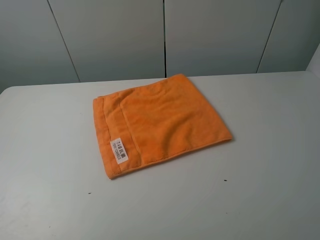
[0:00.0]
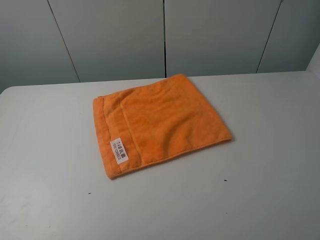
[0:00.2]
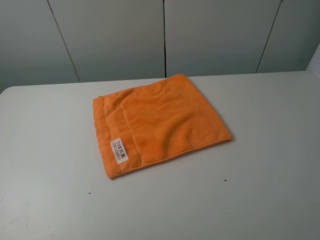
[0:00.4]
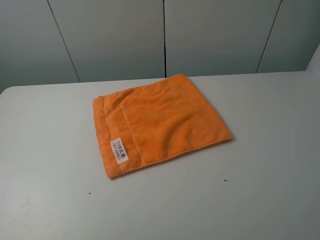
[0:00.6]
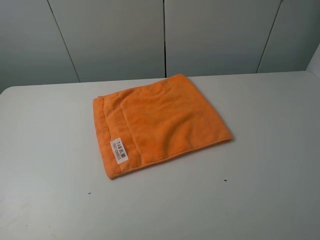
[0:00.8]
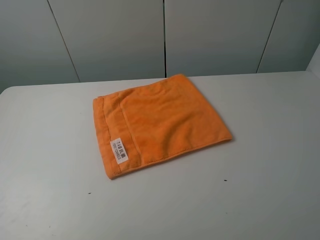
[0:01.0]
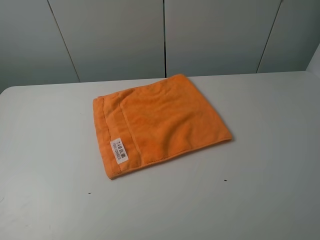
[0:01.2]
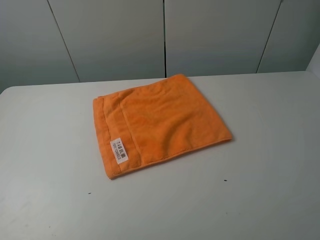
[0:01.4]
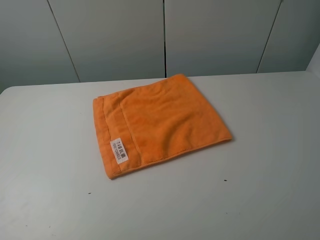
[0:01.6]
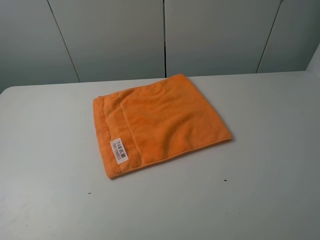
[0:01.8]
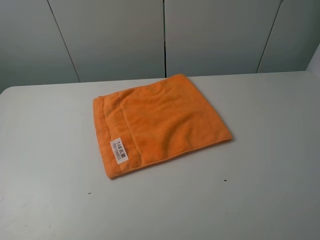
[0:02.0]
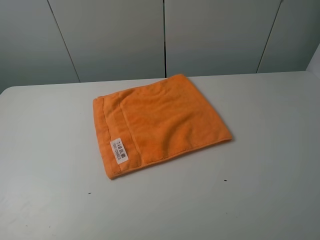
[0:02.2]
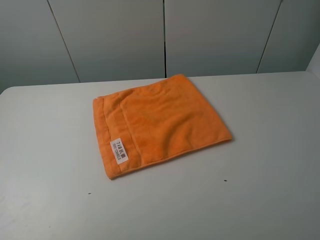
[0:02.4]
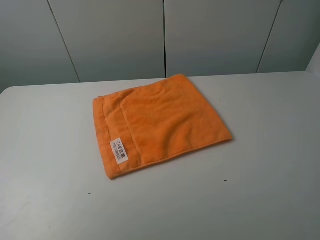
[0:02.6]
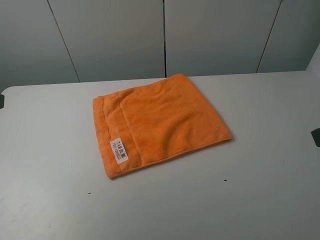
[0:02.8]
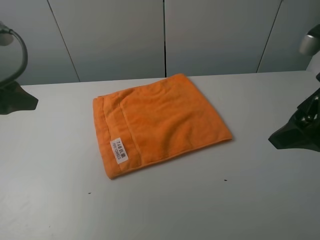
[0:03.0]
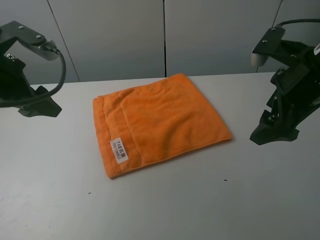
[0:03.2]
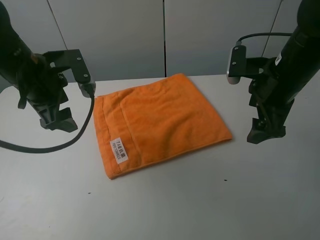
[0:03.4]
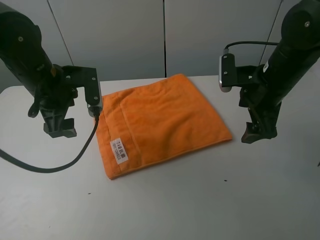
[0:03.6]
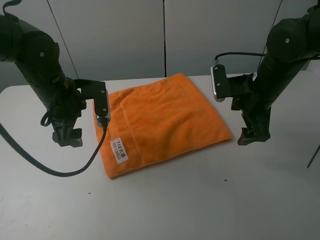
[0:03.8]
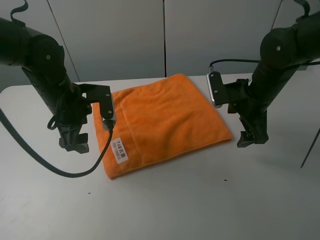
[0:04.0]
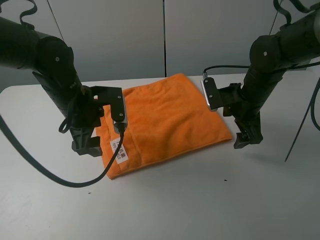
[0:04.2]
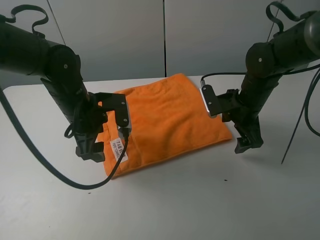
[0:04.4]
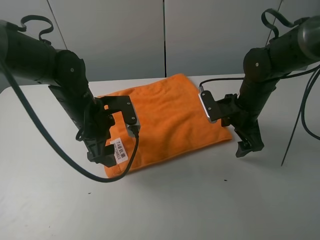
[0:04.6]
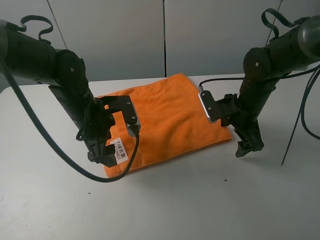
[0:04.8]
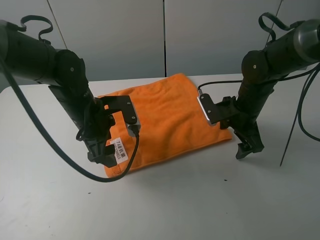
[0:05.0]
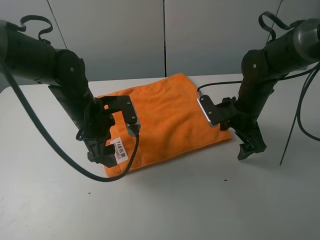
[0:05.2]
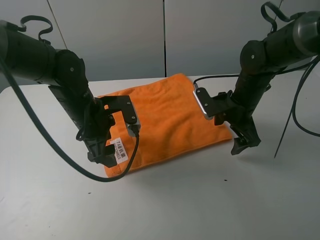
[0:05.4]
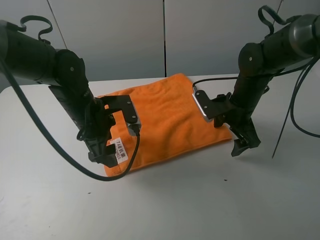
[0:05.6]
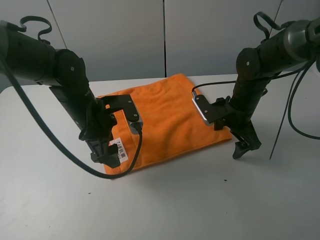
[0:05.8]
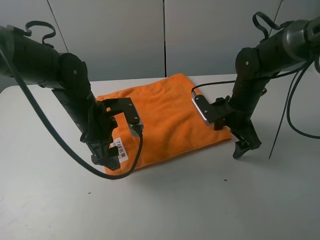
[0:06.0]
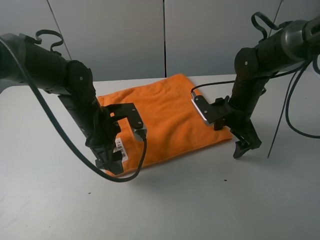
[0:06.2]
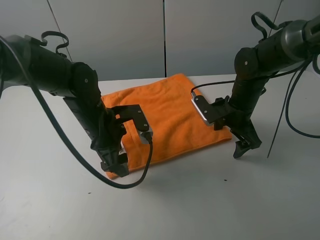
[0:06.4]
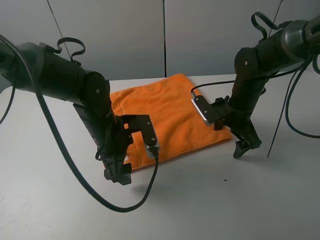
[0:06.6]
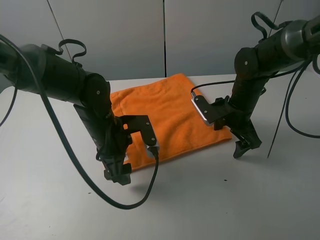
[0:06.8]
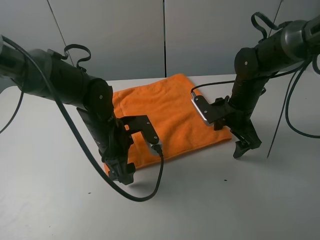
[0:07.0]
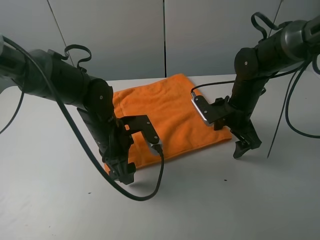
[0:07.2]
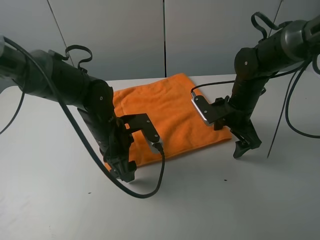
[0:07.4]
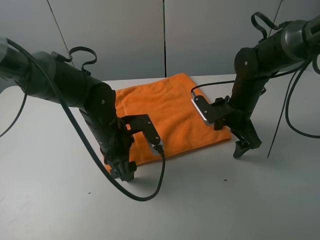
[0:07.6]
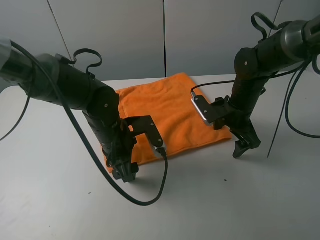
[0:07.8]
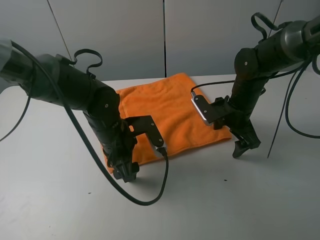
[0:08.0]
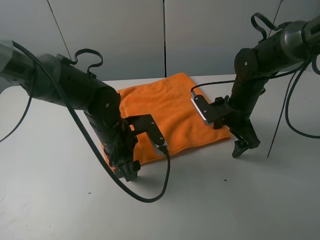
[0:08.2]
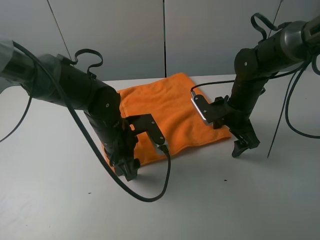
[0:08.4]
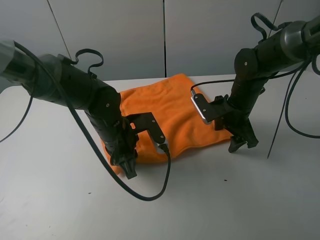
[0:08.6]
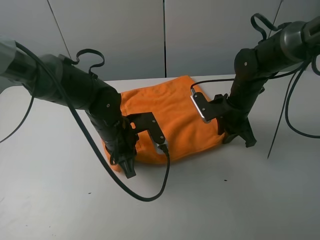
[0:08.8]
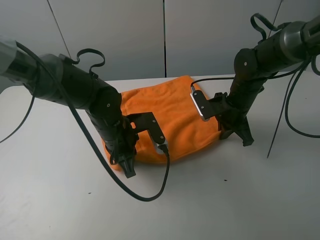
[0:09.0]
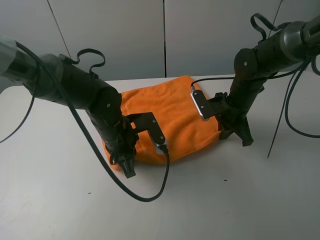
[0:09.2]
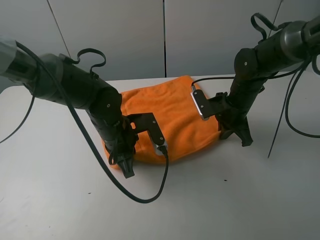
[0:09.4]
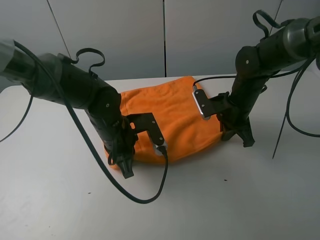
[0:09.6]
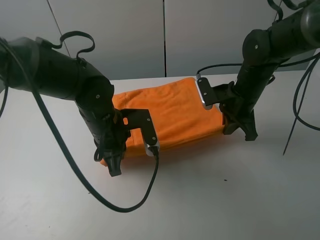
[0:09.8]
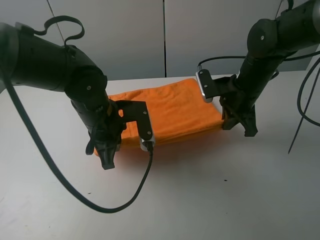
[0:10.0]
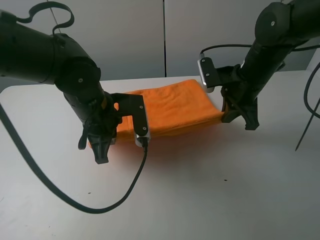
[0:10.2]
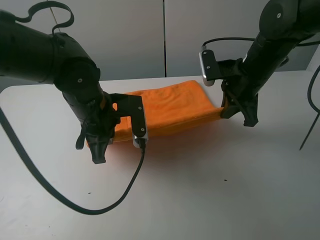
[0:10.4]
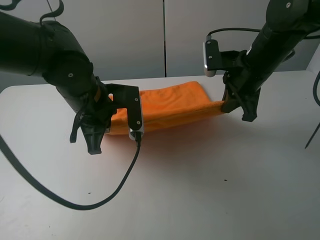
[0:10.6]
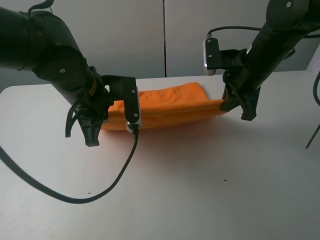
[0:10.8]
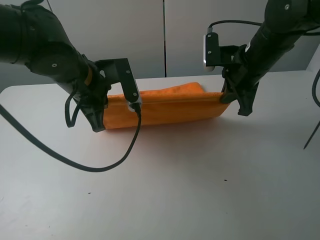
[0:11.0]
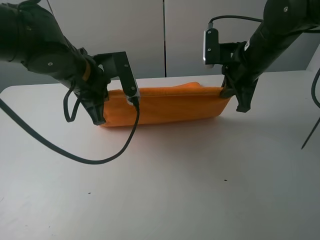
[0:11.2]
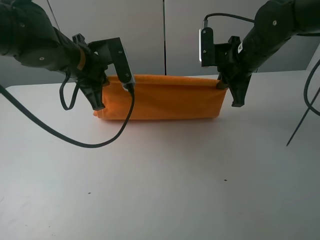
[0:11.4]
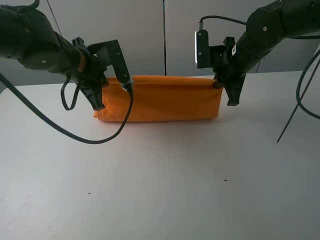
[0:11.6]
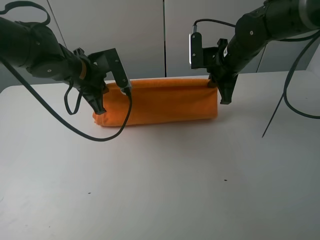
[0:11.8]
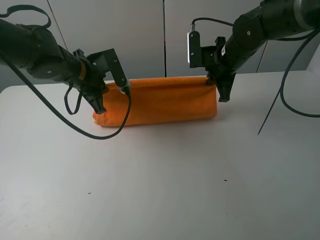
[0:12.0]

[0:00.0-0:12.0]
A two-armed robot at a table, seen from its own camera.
Task of the whole recording: fold the towels on the table.
Step, 0:00.0 to 0:09.2: Grasp the orange towel with the right gripper.
0:00.0 to 0:01.6: Both grippers stay put.
0:01.6 to 0:03.0: Both grippers move forward, approximately 20 cm.
0:03.0 to 0:04.4: The left gripper is displaced to the right, downward and forward by some 20 cm. The right gripper heads downward and forward, covering approximately 20 cm.
0:04.4 to 0:06.0: There are only small adjustments of the grippers.
0:06.0 to 0:07.6: The left gripper shifts by approximately 5 cm.
0:07.6 to 0:09.0: The right gripper closes up; the left gripper closes.
0:09.0 to 0:10.4: Both grippers travel together upward, roughly 10 cm.
0:10.4 to 0:12.0: The right gripper heads forward, covering roughly 5 cm. Meanwhile the left gripper moves forward and to the left, some 10 cm.

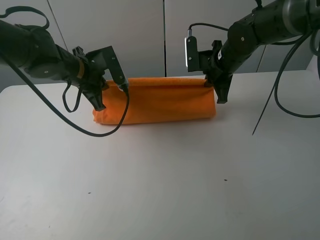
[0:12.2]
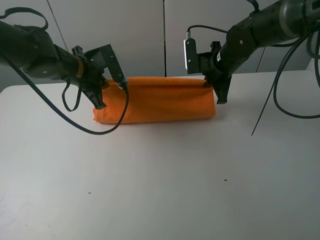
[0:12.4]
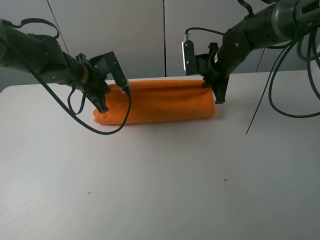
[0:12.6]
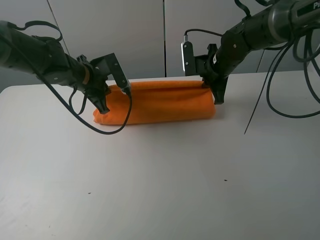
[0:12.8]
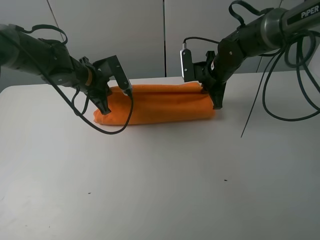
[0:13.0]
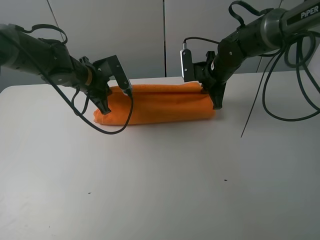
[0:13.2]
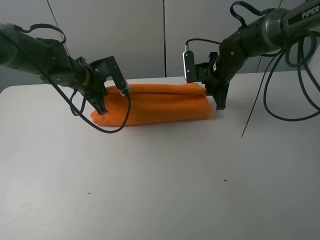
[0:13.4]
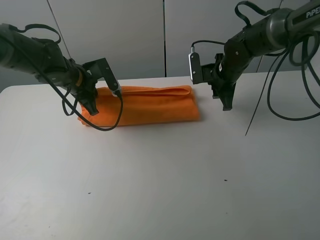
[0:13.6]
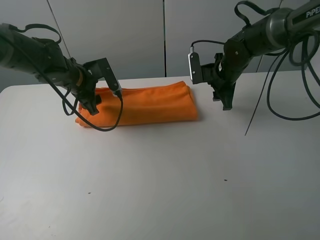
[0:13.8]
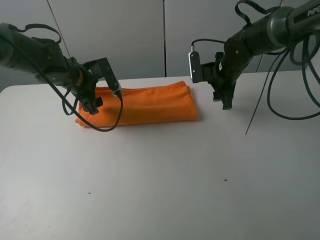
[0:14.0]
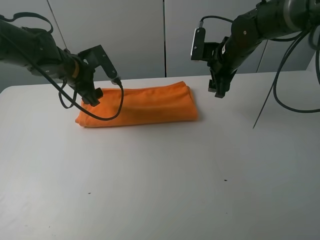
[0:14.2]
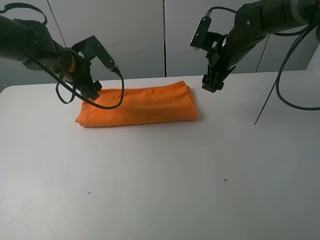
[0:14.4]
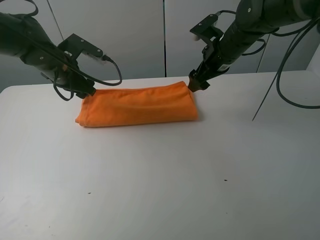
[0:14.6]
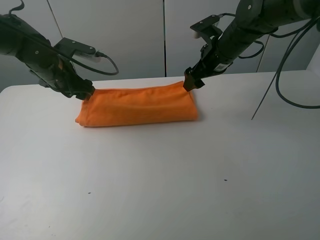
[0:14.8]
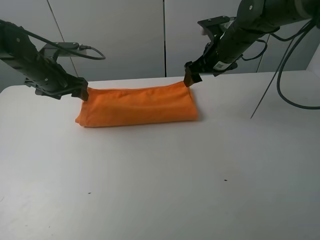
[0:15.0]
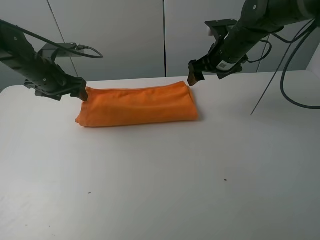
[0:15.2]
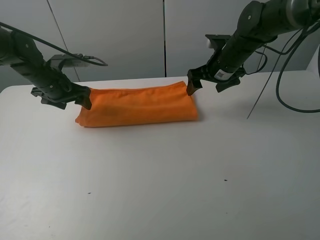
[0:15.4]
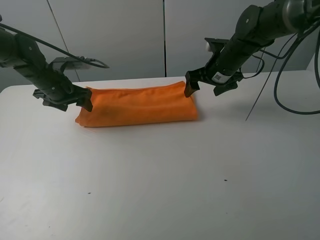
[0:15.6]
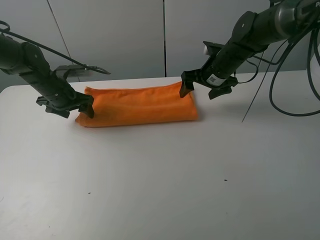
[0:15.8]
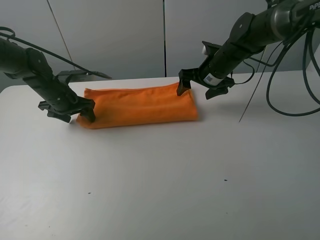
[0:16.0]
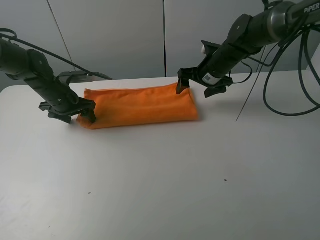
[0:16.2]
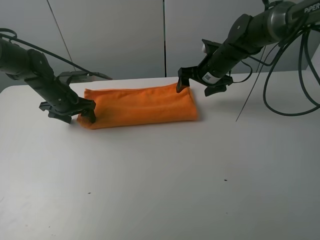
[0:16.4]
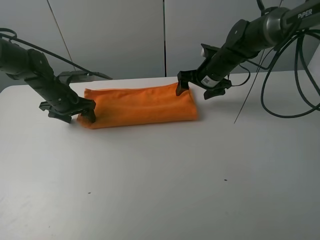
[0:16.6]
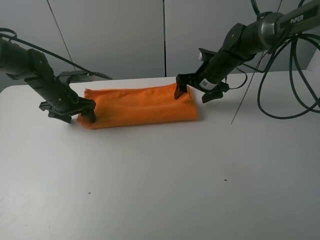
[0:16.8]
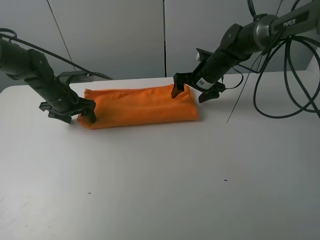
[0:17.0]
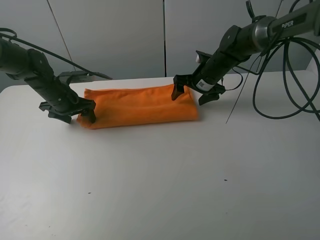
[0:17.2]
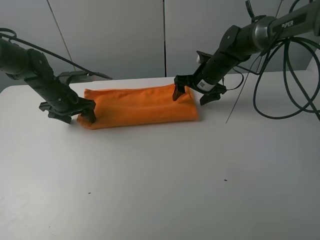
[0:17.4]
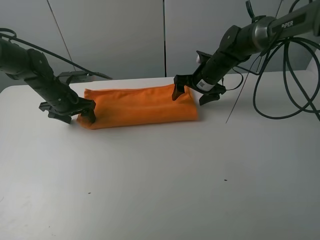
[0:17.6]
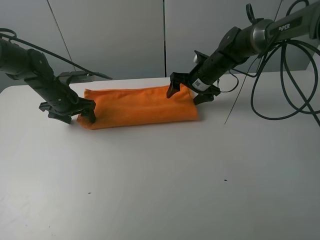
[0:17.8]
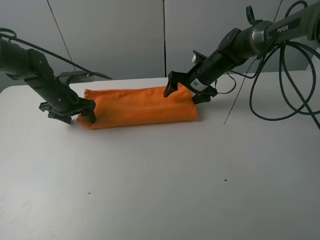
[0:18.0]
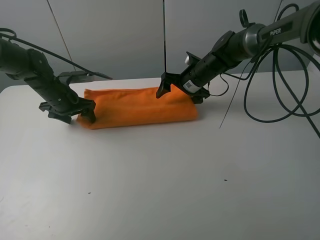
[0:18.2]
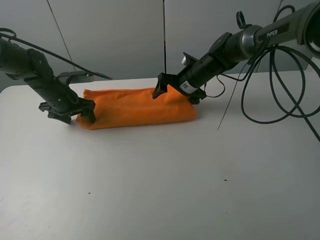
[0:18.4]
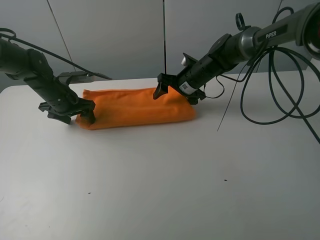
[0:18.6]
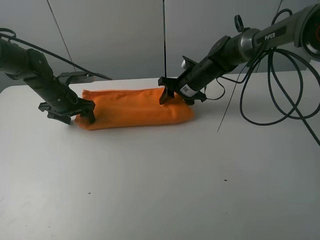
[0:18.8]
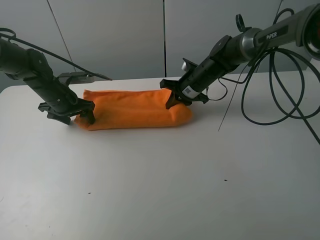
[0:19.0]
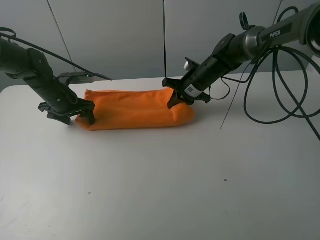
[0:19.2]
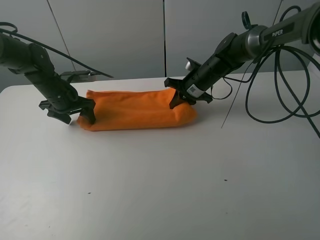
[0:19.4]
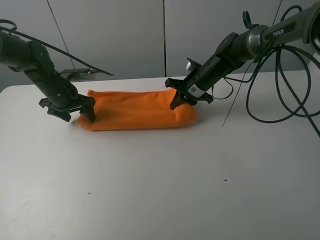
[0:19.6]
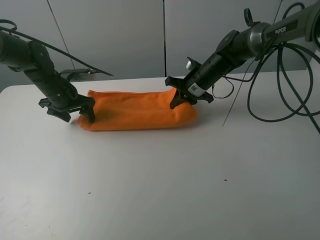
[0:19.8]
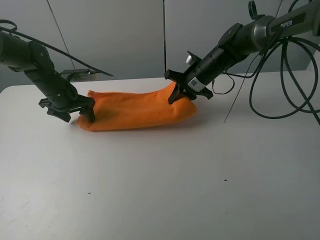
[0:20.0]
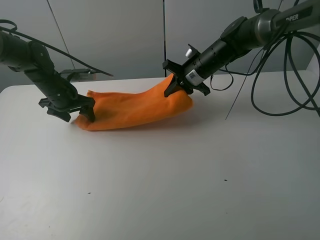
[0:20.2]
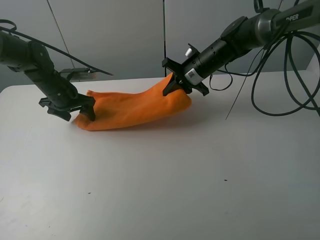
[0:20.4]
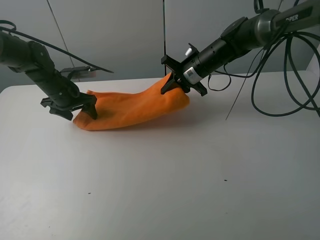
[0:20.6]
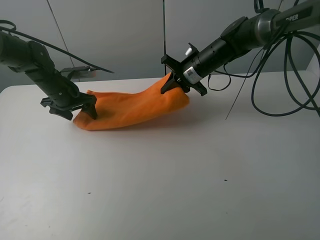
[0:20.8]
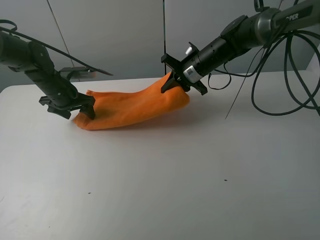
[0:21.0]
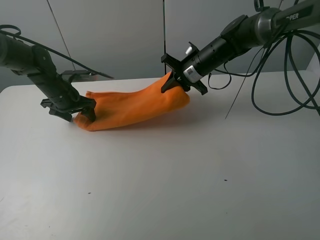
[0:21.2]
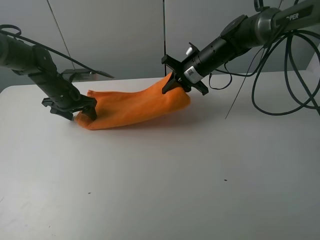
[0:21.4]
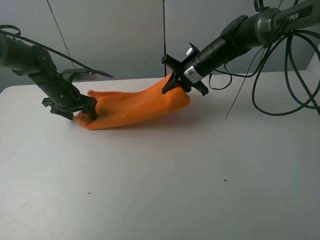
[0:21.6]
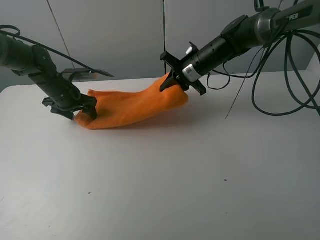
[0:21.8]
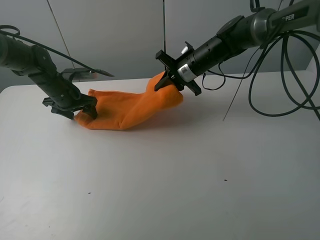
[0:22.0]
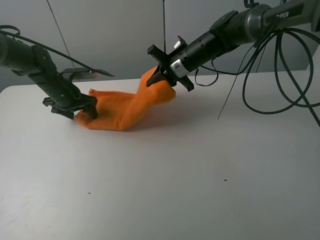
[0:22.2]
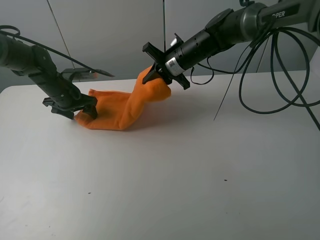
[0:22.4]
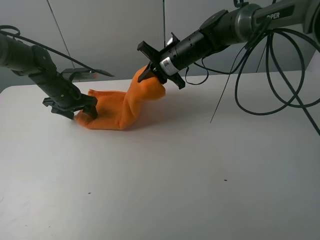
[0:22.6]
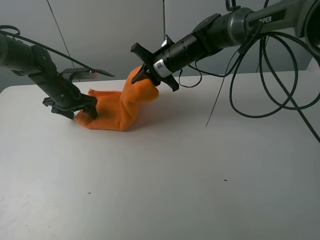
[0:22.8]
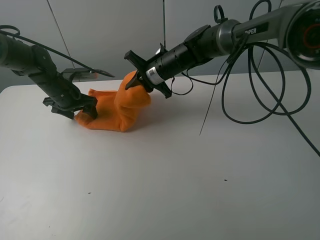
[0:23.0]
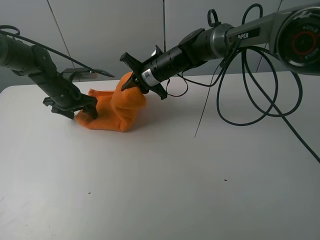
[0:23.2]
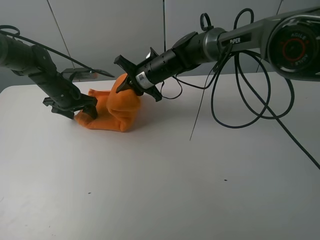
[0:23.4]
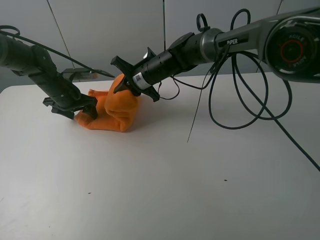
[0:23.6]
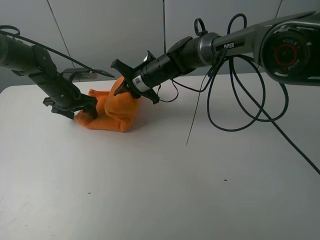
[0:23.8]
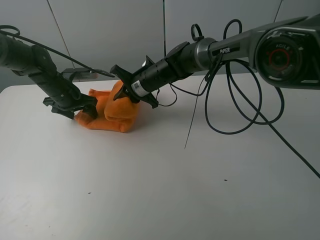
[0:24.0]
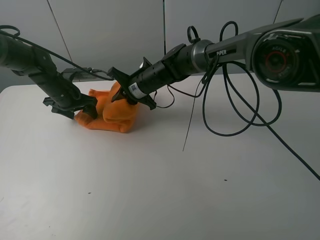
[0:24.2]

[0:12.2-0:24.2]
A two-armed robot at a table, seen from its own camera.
Task of the whole recording: fold the towels on the table.
Step, 0:14.2 to 0:16.0: Press on the orange towel with the left gripper.
0:12.2 to 0:13.8: The right gripper opens up. The left gripper opens.
0:13.8 to 0:15.2: The left gripper is displaced to the left by about 5 cm. The right gripper shifts about 5 cm upward, and opens its fingers.
0:15.2 to 0:16.6: The two grippers go about 5 cm downward.
0:16.6 to 0:18.2: The grippers move only a little.
0:18.2 to 0:19.8: The right gripper closes.
0:19.8 to 0:21.2: There are only small adjustments of the grippers.
0:21.2 to 0:22.6: The right gripper heads to the left, covering about 5 cm.
0:22.6 to 0:24.2: The right gripper travels to the left and downward by approximately 10 cm.
